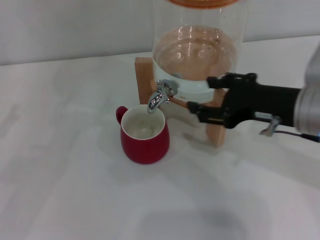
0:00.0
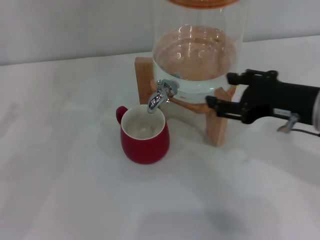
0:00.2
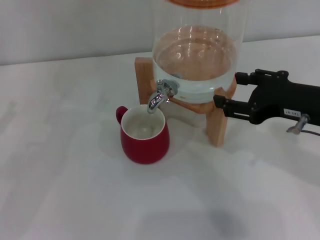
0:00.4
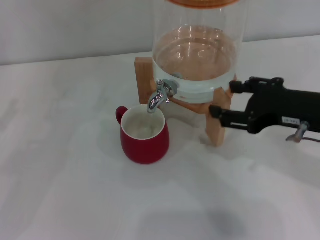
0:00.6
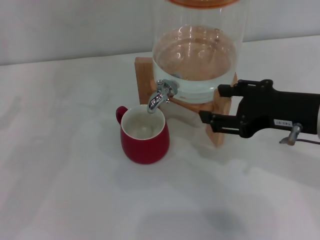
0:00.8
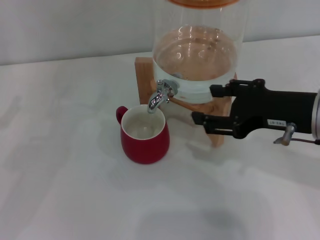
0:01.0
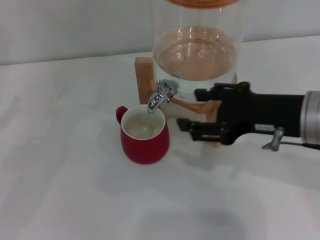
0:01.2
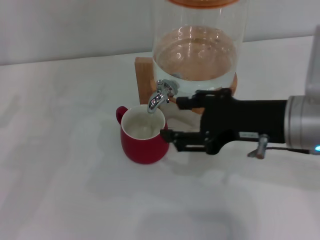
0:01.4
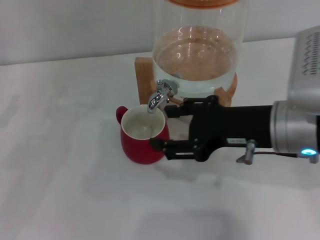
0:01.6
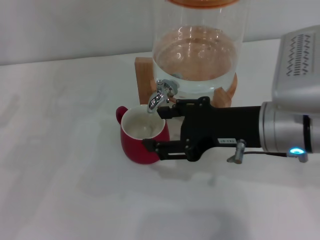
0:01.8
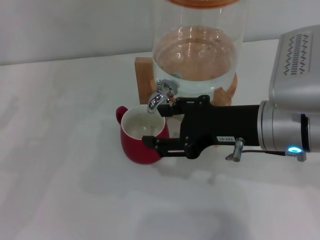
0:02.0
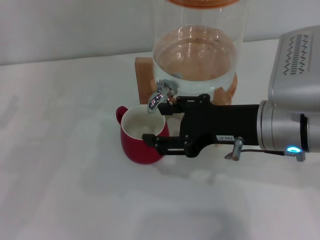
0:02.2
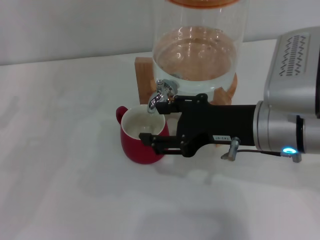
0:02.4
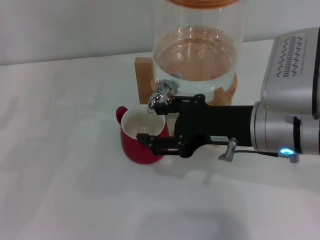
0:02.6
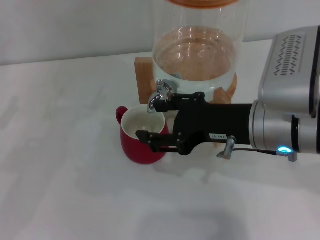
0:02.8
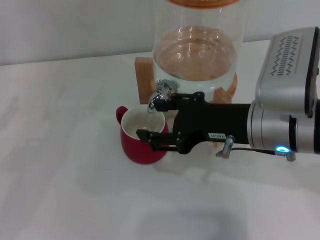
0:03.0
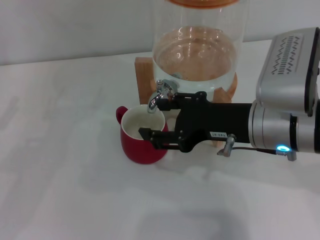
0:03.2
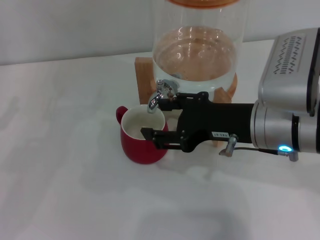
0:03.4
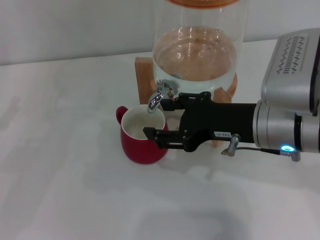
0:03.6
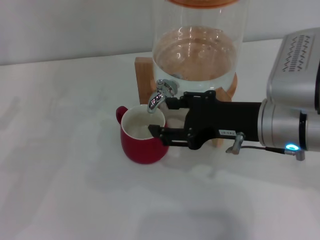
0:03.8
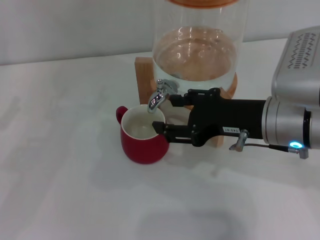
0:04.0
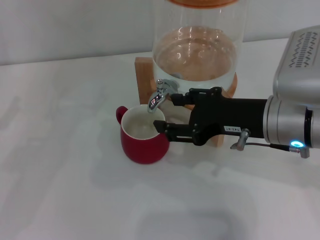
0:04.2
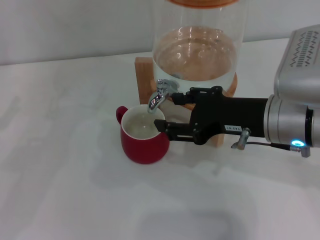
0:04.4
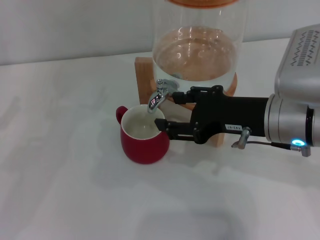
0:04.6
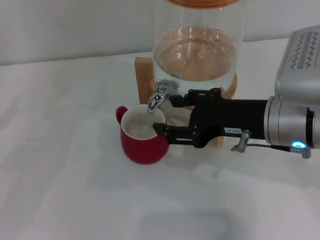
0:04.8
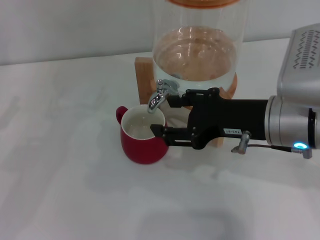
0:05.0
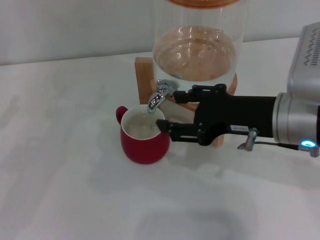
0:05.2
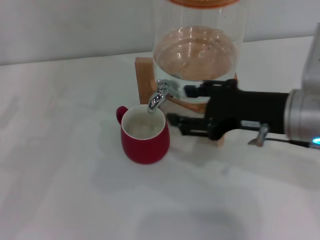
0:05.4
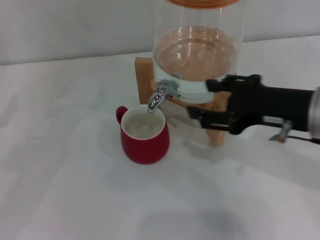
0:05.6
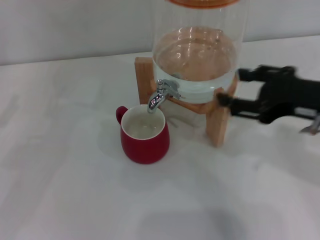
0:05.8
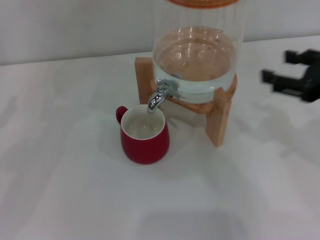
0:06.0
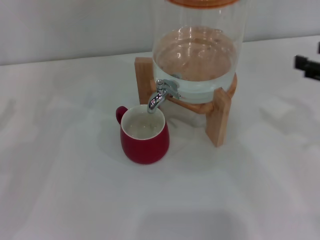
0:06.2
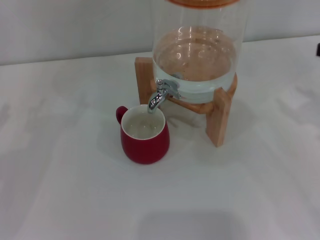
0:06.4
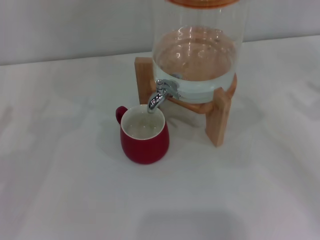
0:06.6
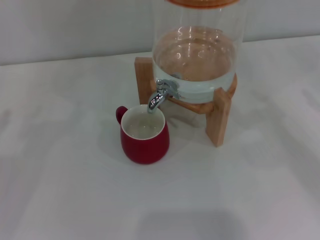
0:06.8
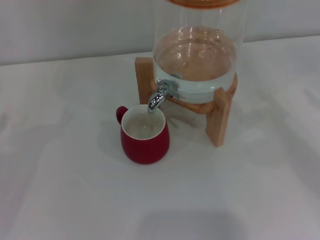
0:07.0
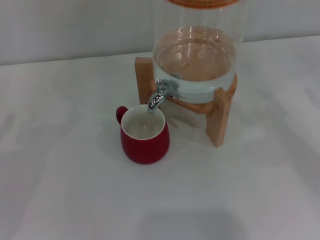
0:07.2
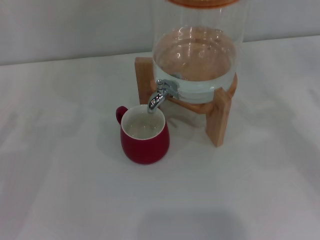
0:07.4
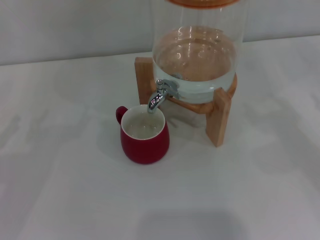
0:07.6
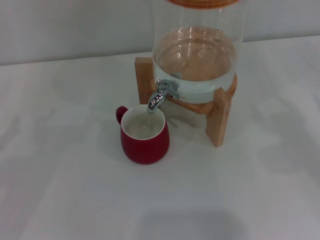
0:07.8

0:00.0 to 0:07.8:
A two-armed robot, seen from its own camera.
Task of the whole recording: the left gripper pick up the red cup and place it horizontally under the faucet, the right gripper turn on the faucet to fill the cup, and then turn off the faucet.
Step, 0:00.0 to 0:05.0: Close the dispenser valve with the right gripper.
0:00.0 to 0:04.6: The grippers stay close to where they were, moving slightly.
0:04.6 to 0:06.2: The right gripper shifts roughly 15 cm to the right.
0:06.2 to 0:07.8: The right gripper moves to the right and downward, some 10 cm.

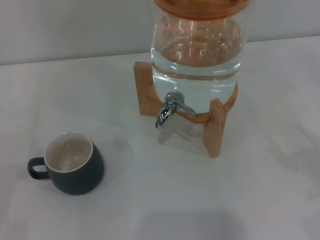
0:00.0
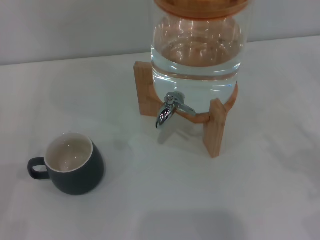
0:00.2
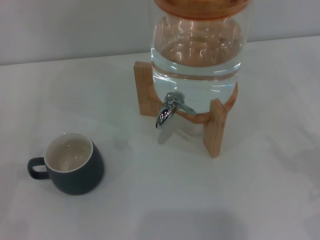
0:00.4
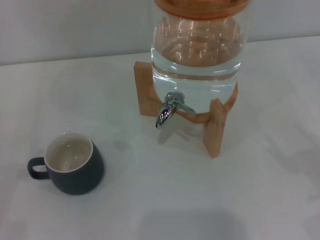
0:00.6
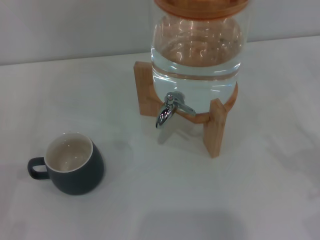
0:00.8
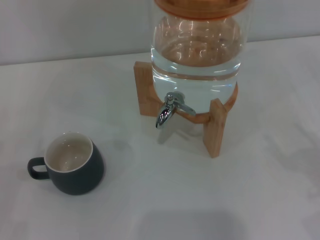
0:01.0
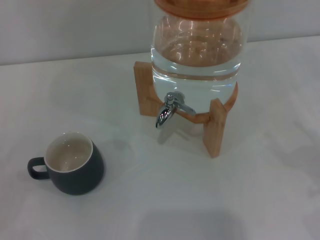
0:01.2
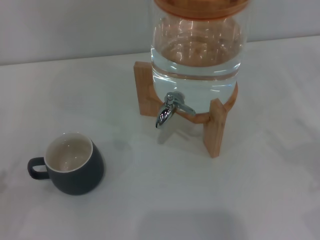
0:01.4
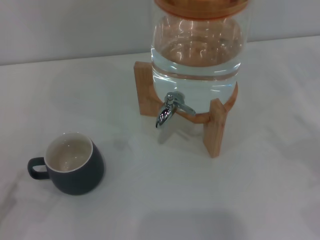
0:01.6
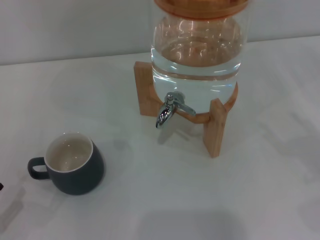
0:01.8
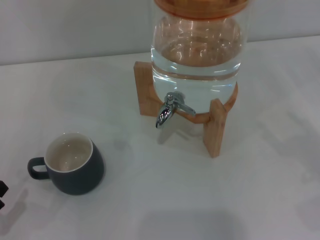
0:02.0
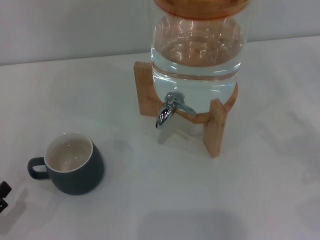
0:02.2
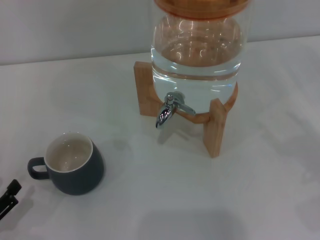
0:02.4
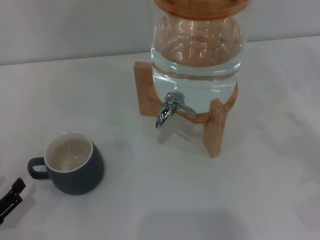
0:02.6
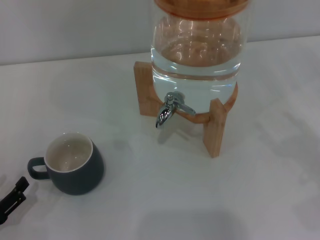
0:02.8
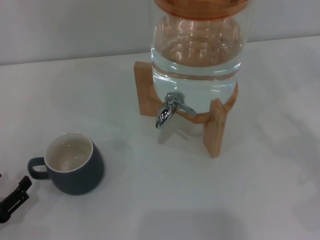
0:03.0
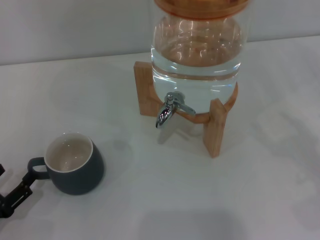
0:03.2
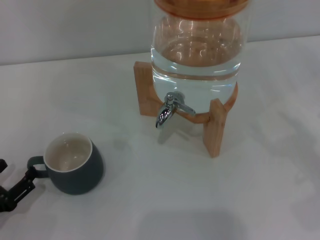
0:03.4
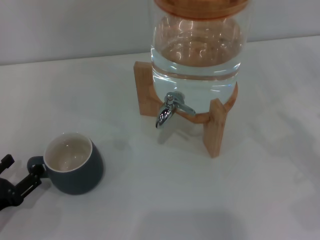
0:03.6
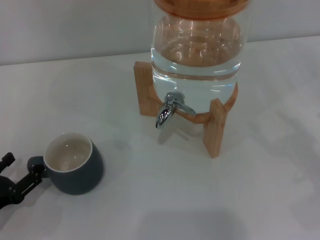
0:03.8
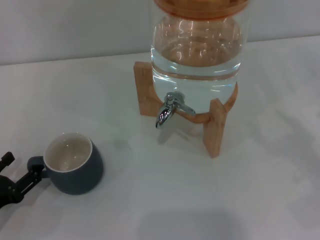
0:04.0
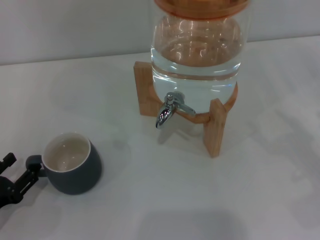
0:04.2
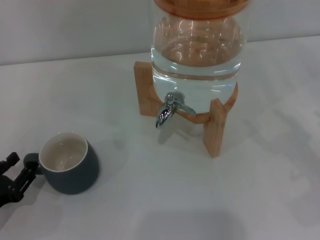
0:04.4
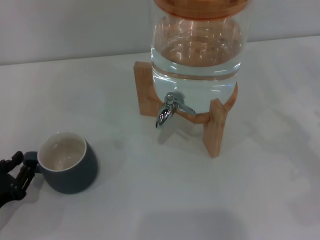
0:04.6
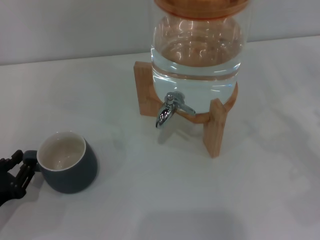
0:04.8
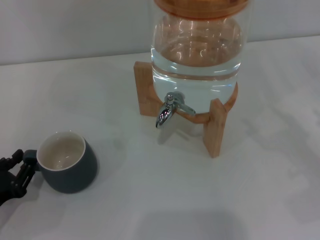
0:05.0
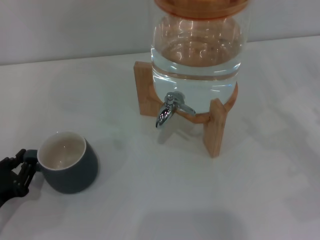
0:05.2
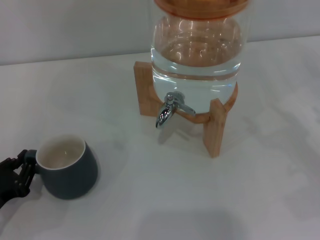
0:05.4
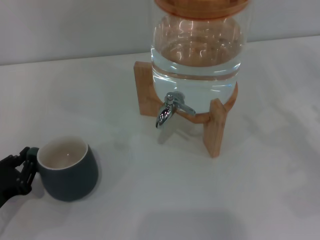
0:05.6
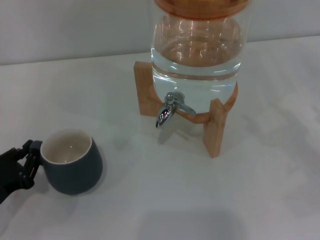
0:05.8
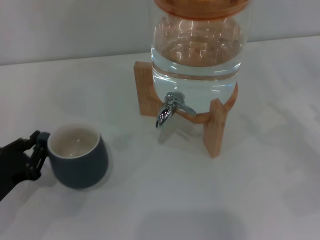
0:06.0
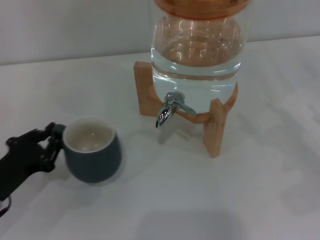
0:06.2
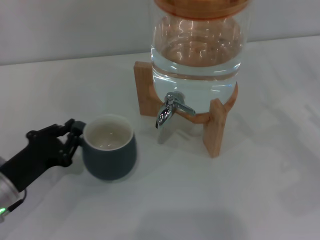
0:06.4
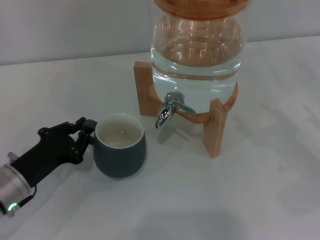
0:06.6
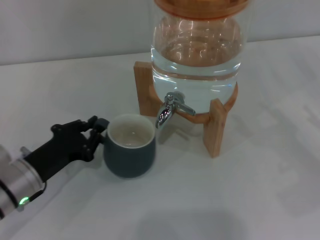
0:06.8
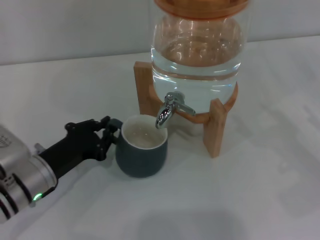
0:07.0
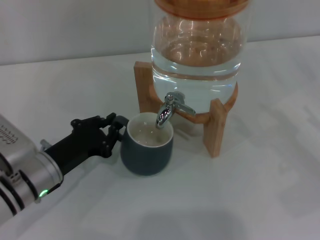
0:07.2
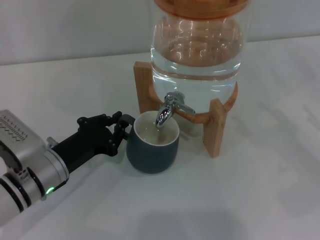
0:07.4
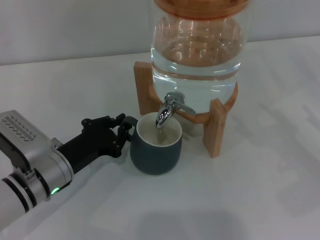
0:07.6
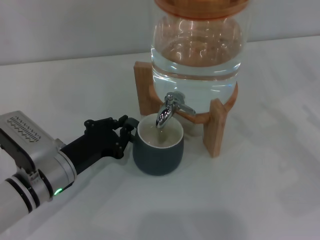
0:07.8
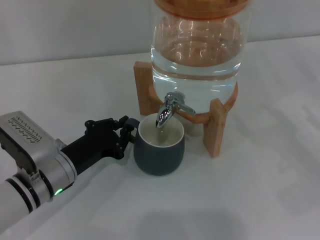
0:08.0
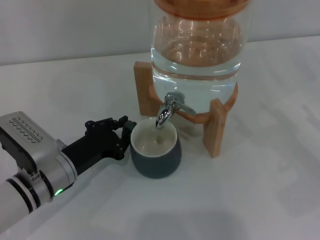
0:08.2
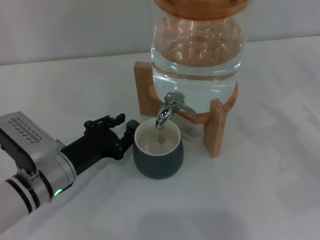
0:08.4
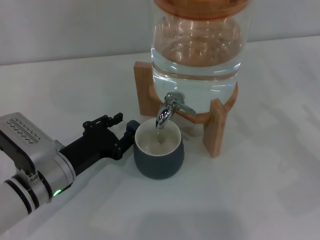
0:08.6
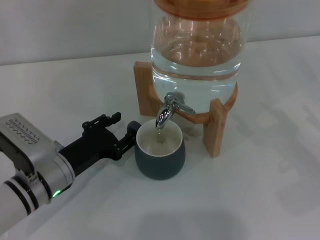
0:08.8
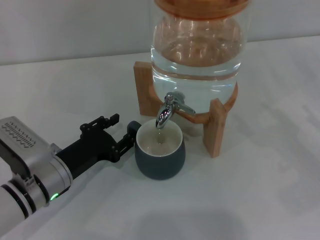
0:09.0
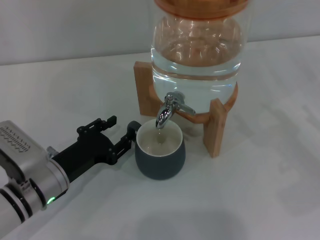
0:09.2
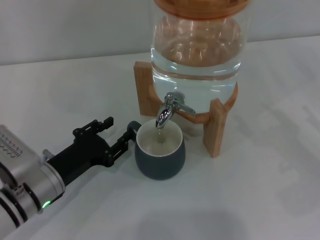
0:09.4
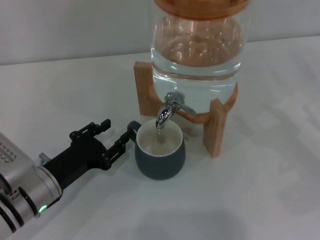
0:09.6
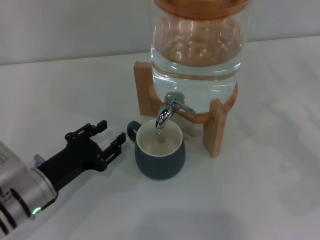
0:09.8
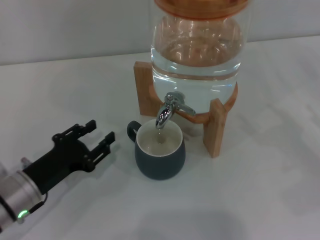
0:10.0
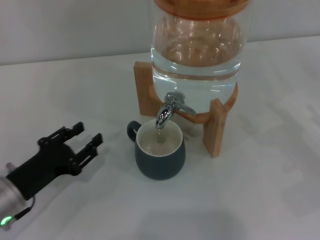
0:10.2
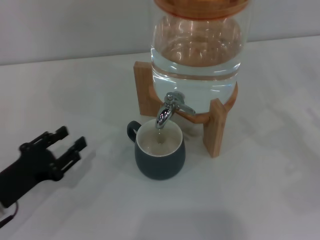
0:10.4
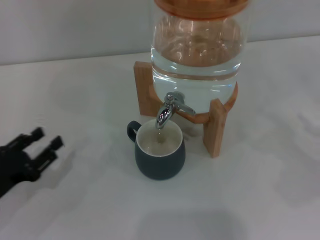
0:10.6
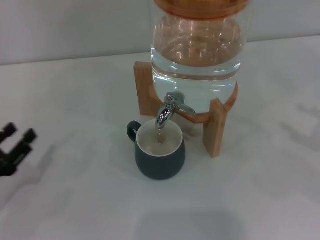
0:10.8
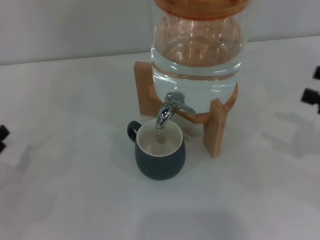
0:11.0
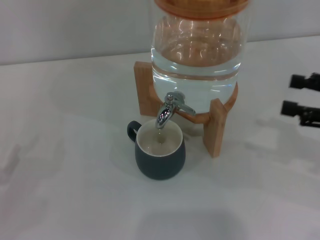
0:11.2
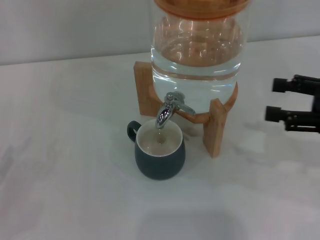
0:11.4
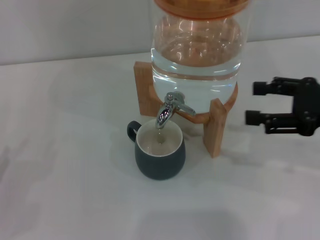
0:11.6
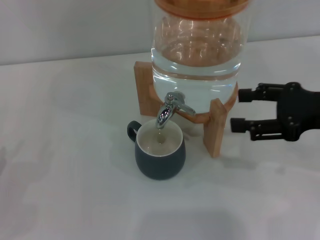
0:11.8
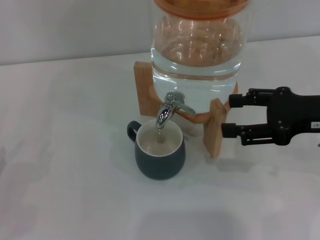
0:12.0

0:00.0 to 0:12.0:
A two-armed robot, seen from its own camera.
Task of the whole recording: the left gripper pick up the black cup and place it horizontally under the faucet, the right gripper turn on the faucet to fill the cup, and then turn off the faucet.
Step, 0:00.0 to 0:10.0: Move the cup beneath the water dispenser nozzle with the left gripper.
0:01.6 to 0:03.0: The left gripper ends up about 5 cm from where it was.
0:03.0 to 0:04.4: The grippers move only a little.
0:04.4 to 0:06.0: The left gripper closes up.
0:06.0 to 0:07.6: The left gripper shifts about 15 cm to the right and forward.
0:07.6 to 0:09.0: The left gripper opens its fingers.
0:09.0 to 0:10.4: The left gripper heads to the left, covering about 10 cm.
0:10.4 to 0:12.0: The right gripper shifts some 15 cm to the left, upward and forward. Meanwhile the left gripper heads to the left, covering roughly 10 cm.

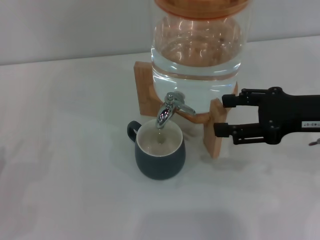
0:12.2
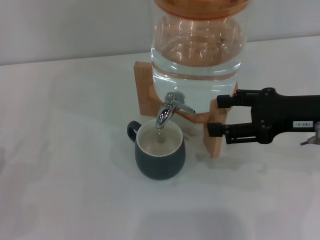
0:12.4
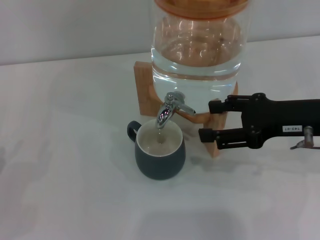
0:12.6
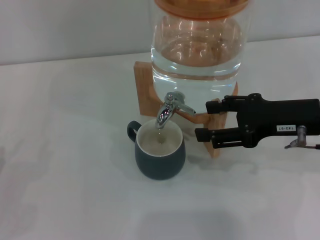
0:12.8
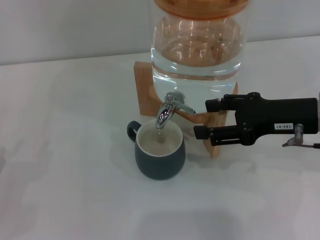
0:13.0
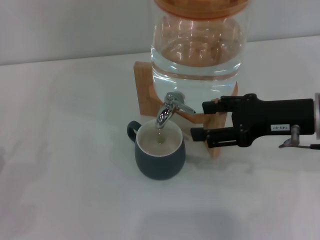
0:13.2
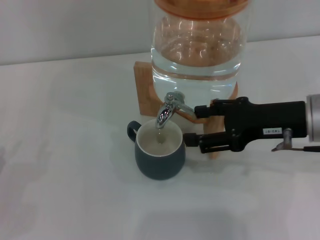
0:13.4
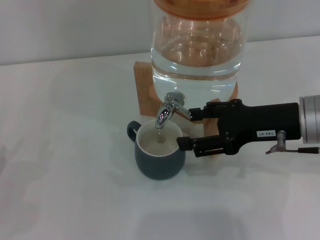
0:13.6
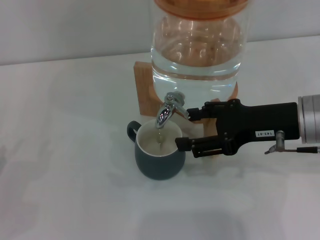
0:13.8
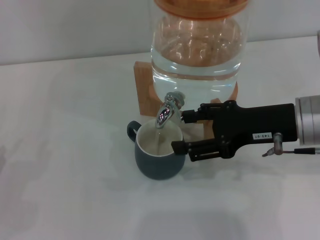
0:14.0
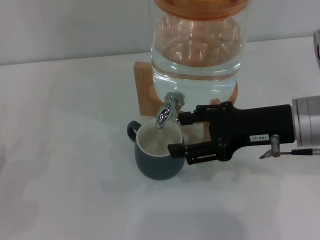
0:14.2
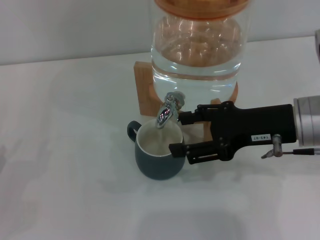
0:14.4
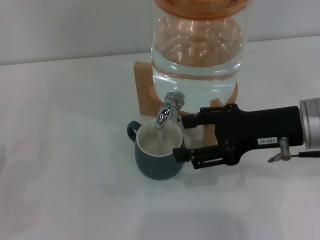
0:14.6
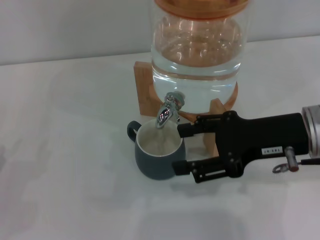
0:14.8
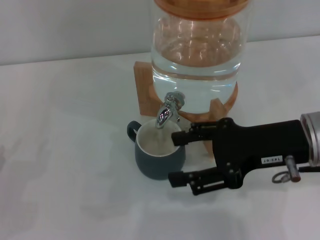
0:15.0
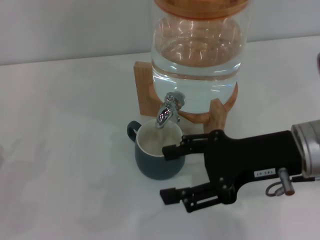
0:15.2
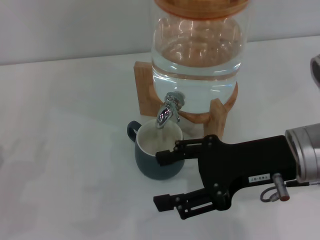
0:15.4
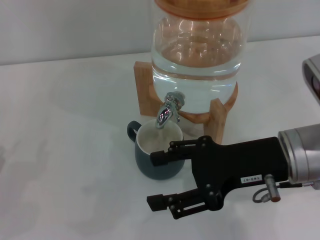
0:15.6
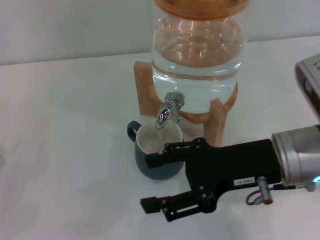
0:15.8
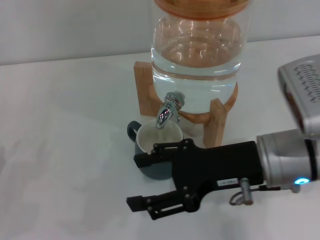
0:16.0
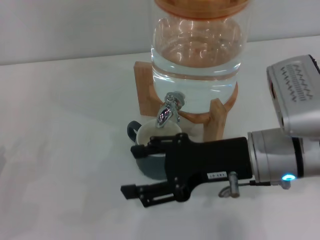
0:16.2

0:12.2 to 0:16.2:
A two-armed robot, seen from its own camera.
Task of the whole recording: the left gripper pick up the black cup and place it horizontally under the faucet, the right gripper turn on the faucet to fill the cup, and then turn off the faucet.
0:12.2 to 0:13.6: The right gripper shifts by roughly 5 cm.
0:13.6 to 0:14.8: The grippers move only a little.
0:14.8 to 0:16.2: The right gripper is displaced to the left by some 5 cm.
